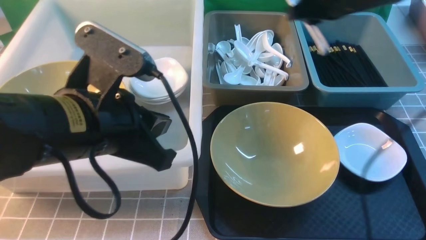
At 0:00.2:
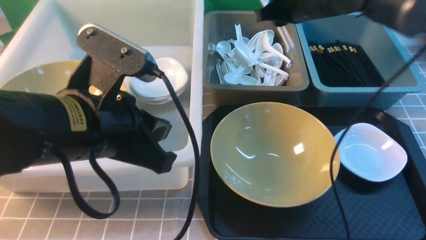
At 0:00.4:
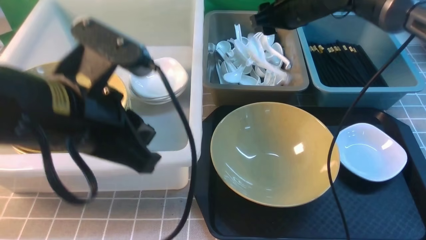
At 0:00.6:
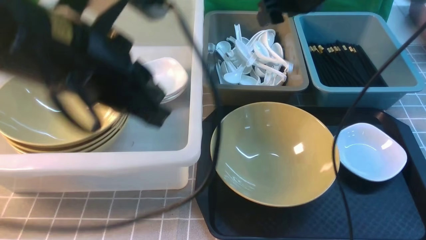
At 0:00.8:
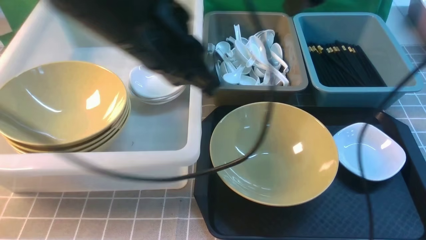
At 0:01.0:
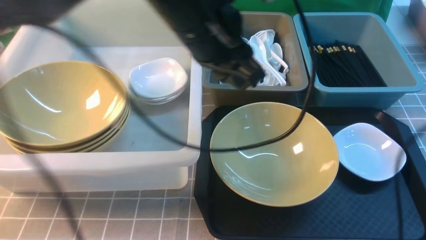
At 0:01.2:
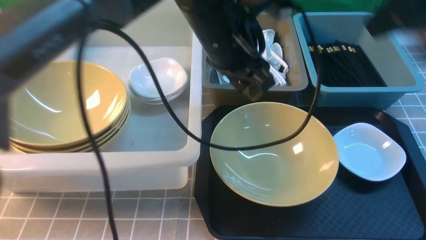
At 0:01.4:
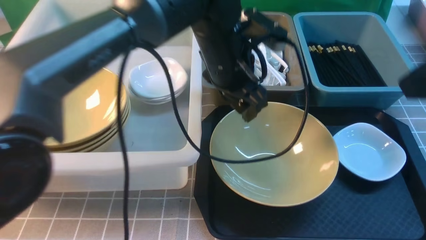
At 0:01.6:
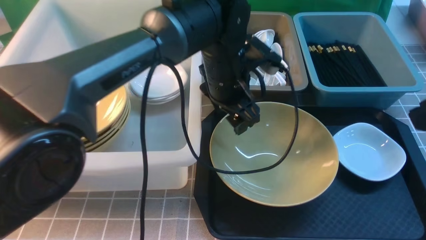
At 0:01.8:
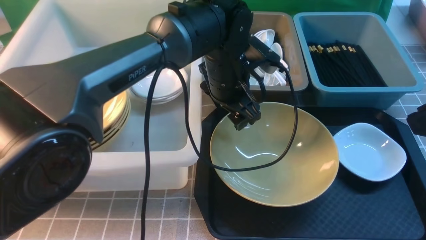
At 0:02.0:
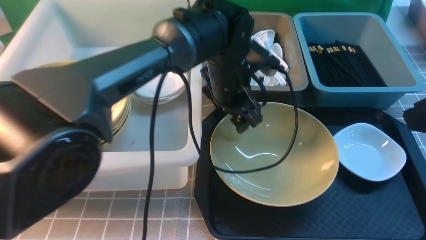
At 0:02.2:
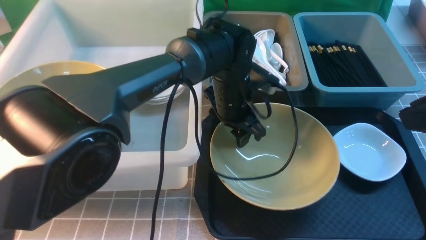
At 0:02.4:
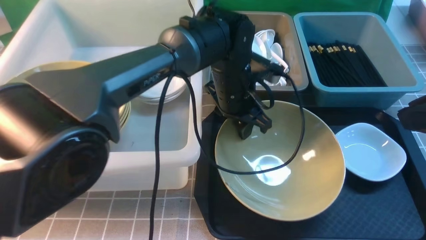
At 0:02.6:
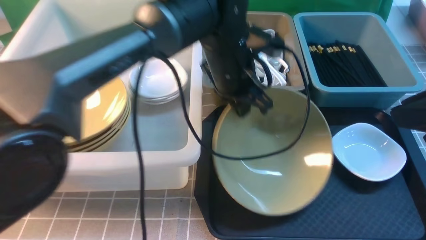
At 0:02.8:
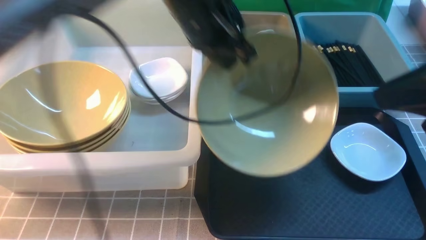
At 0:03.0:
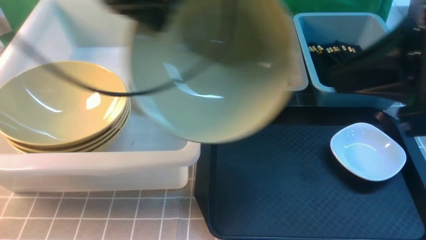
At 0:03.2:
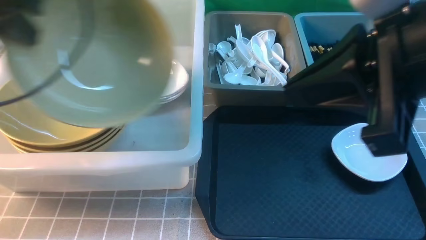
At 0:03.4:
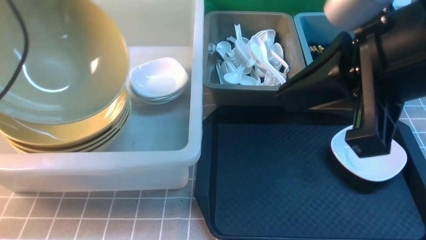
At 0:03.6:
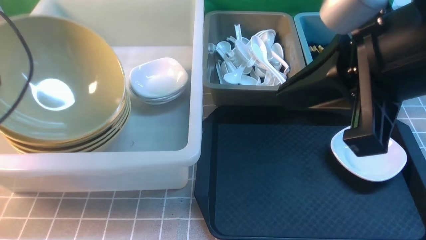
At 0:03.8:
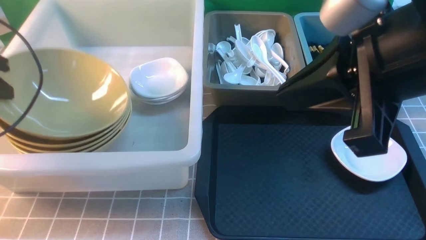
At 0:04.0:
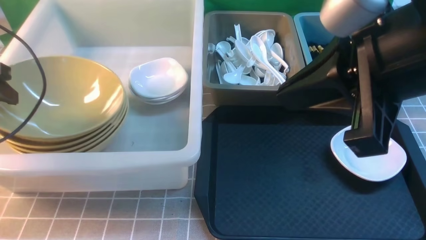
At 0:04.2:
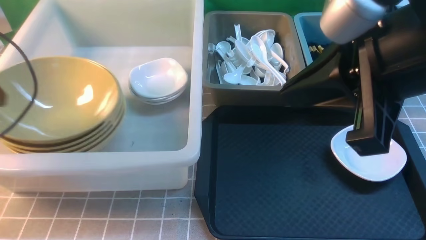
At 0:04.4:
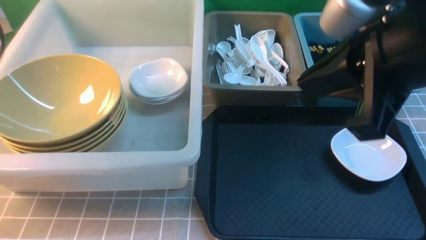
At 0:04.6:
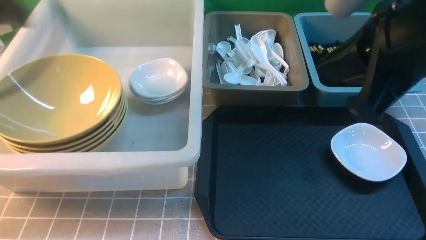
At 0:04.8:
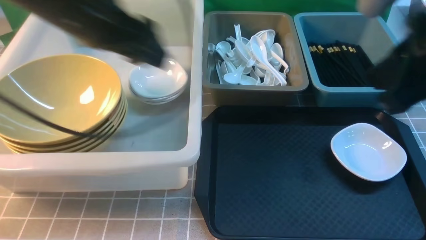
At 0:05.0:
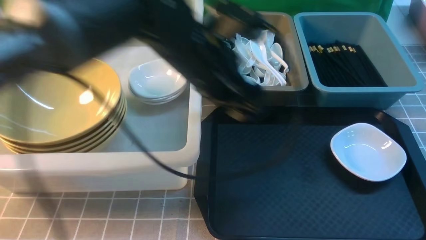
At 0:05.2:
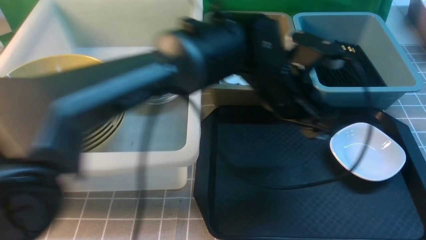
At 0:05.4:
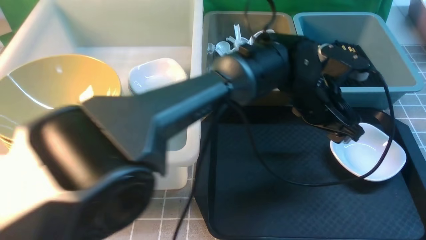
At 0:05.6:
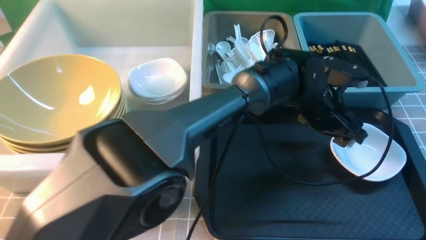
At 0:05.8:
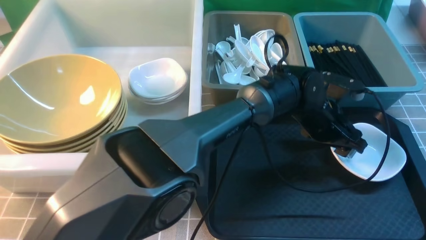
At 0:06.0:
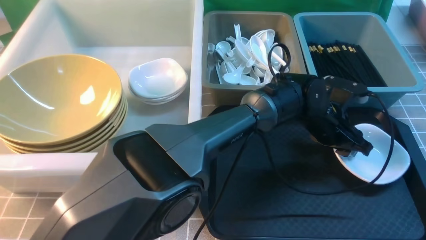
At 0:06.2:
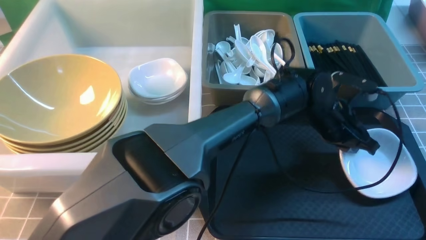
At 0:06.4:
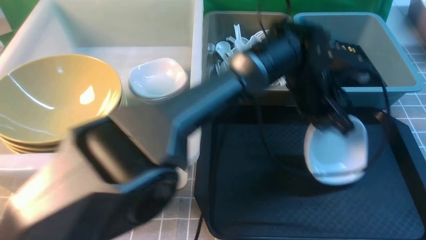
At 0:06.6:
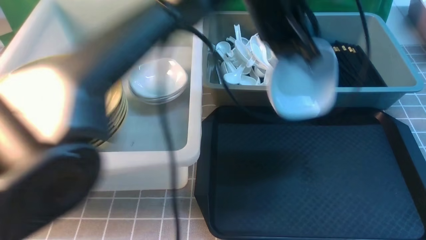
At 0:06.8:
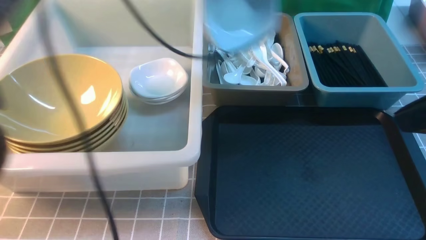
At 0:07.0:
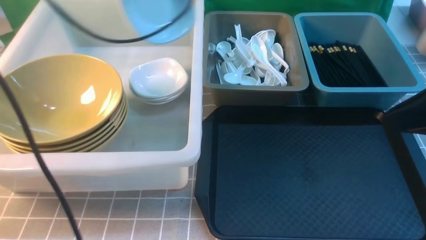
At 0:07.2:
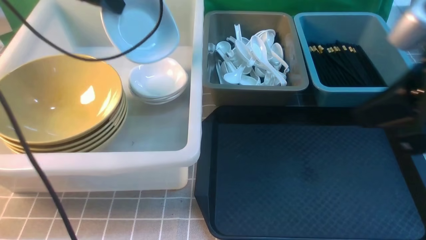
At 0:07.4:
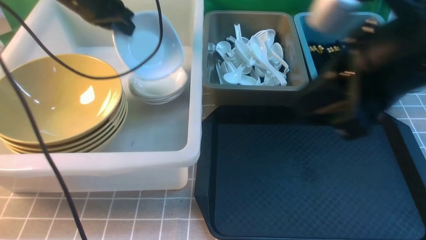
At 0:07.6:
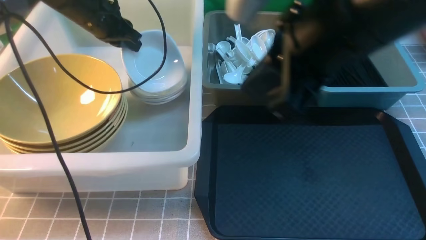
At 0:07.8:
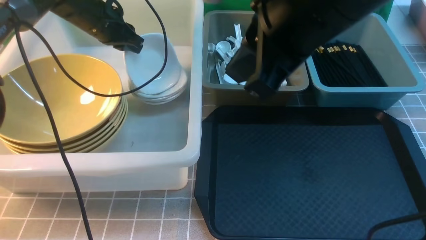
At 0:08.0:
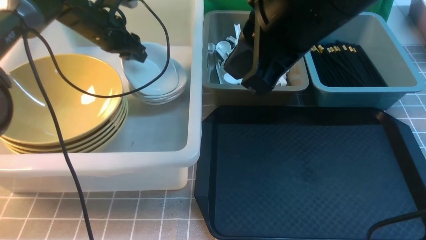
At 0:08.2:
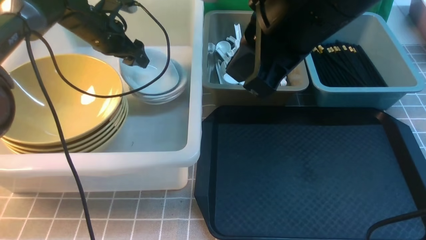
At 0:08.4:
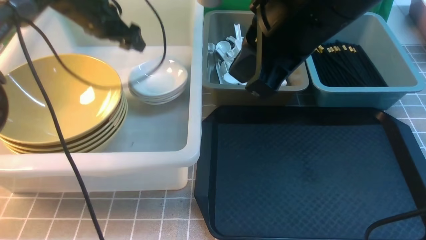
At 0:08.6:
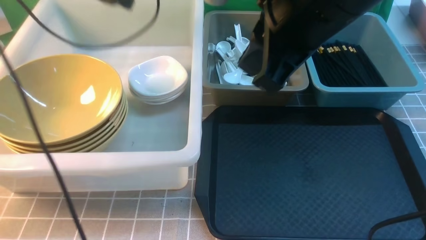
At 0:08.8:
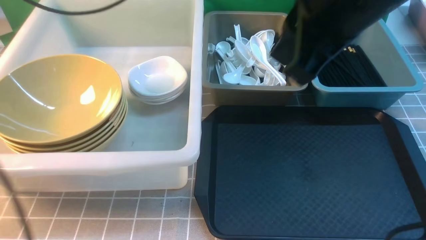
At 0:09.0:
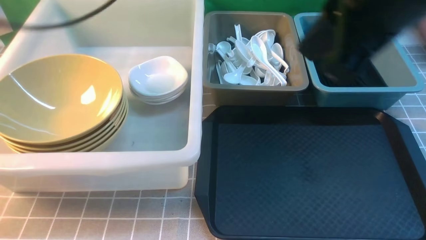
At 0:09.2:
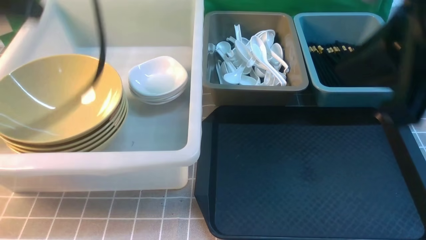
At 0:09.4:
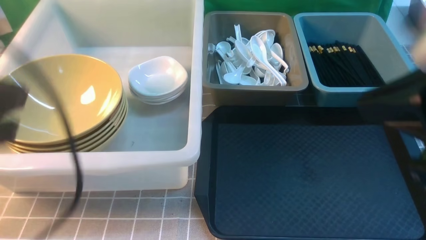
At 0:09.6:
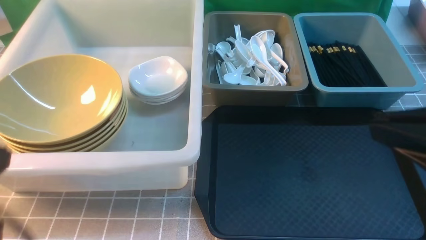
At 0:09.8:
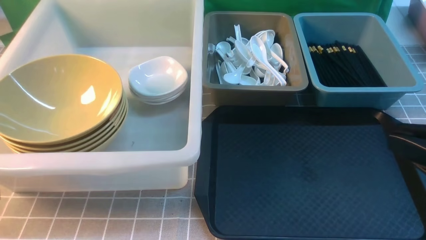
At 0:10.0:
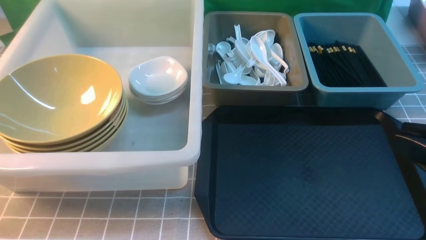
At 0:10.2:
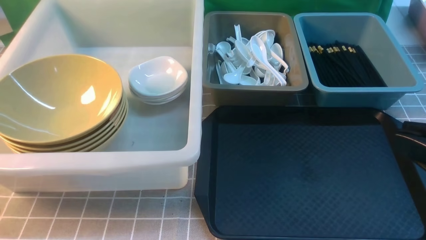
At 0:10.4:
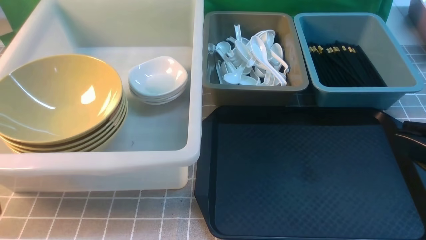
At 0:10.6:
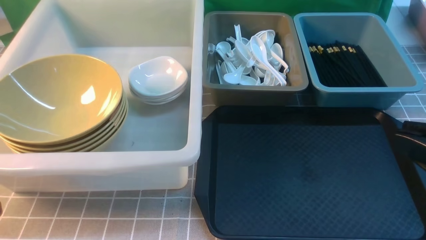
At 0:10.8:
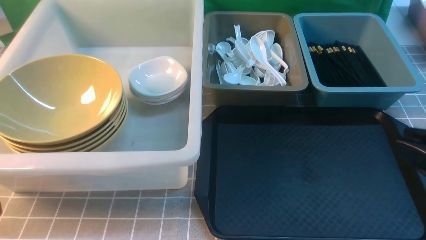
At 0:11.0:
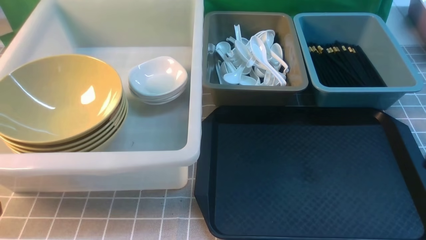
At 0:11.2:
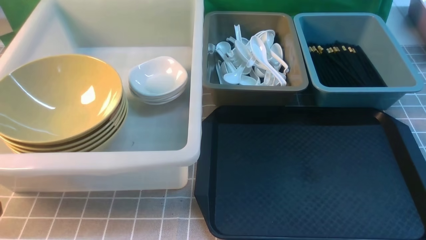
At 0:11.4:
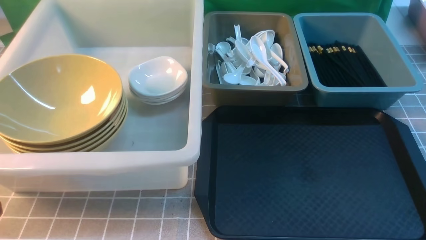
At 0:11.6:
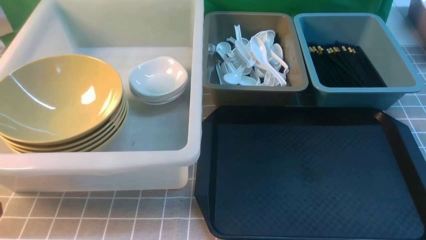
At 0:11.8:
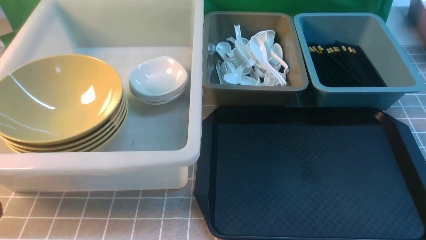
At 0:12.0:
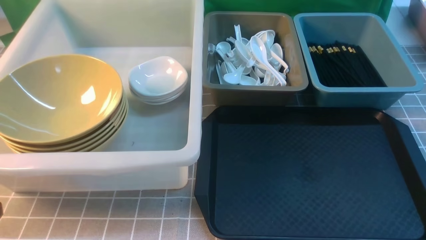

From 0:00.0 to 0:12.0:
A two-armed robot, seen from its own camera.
Task of the whole recording: on grey table put chopsticks spoon bowls plates into blue grey white boxes.
Step, from 0:00.6 to 0:02.4: use the left arm to grab the yellow noodle bowl on the left.
Step, from 0:02.6 to 0:04.2: use the left arm to put the noodle bowl into the large storage box on the left.
Step, from 0:04.4 to 0:06.2: use the left arm to grab the plate.
Step, from 0:06.6 to 0:08.2: use the left arm to put the plate into the large storage box on the left.
From 0:00.0 to 0:01.6: The right gripper heads backward, covering roughly 25 cm, and opens, then closes again. The left gripper shifts some 25 cm forward and to the right, and opens.
From 0:01.6 to 0:03.0: The left gripper heads to the left and upward, covering about 25 cm, and closes up; the right gripper heads to the left, covering roughly 5 cm.
From 0:03.0 to 0:04.4: The left gripper is displaced to the left by roughly 15 cm, and opens its fingers.
From 0:04.4 to 0:06.0: The left gripper moves to the right and downward, roughly 60 cm, and closes. Meanwhile the right gripper goes approximately 15 cm to the right and backward.
From 0:06.0 to 0:07.6: The left gripper is displaced to the left by about 40 cm, and closes, while the right gripper shifts some 20 cm to the left and forward.
From 0:07.6 to 0:09.0: The left gripper travels upward and backward by roughly 30 cm, and opens, then closes once more. The right gripper changes place by approximately 5 cm.
From 0:09.0 to 0:10.4: The left gripper is displaced backward and downward by approximately 35 cm, while the right gripper shifts approximately 20 cm backward, downward and to the right.
From 0:10.4 to 0:12.0: The right gripper moves downward and to the right, roughly 20 cm.

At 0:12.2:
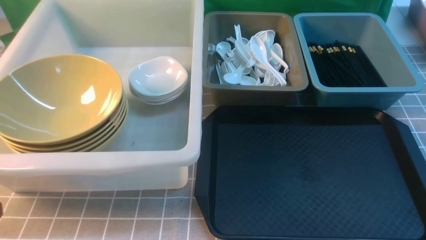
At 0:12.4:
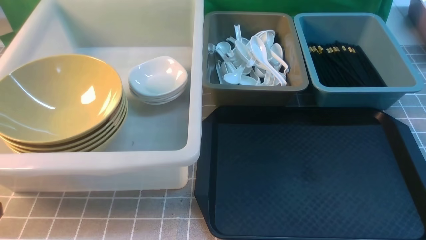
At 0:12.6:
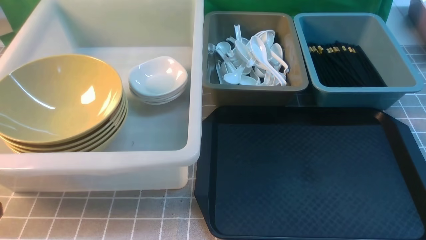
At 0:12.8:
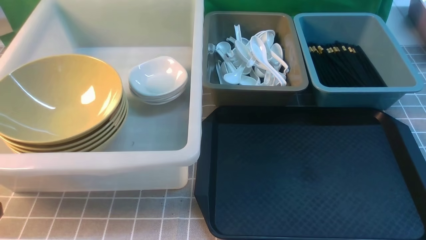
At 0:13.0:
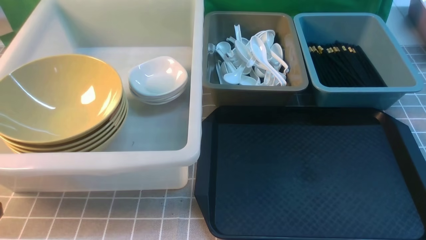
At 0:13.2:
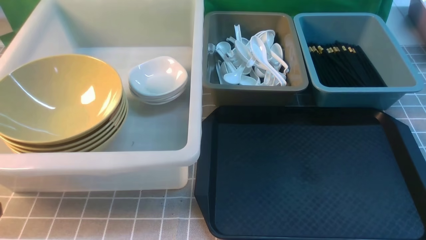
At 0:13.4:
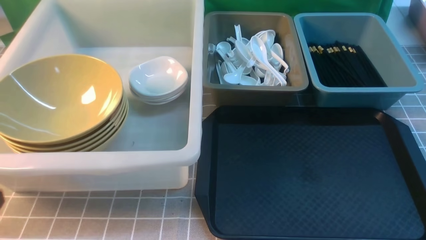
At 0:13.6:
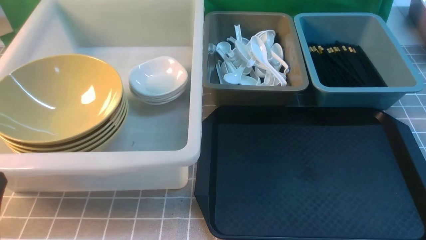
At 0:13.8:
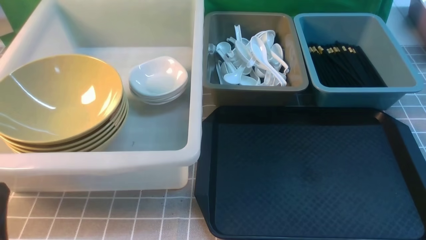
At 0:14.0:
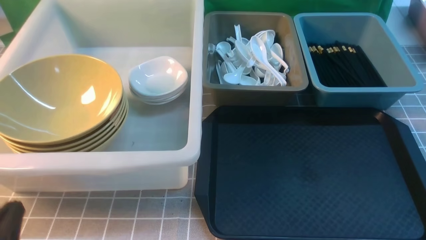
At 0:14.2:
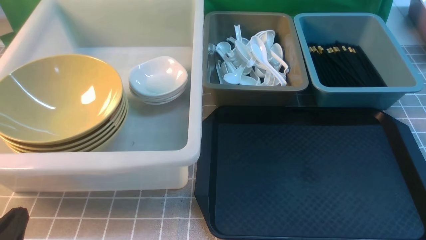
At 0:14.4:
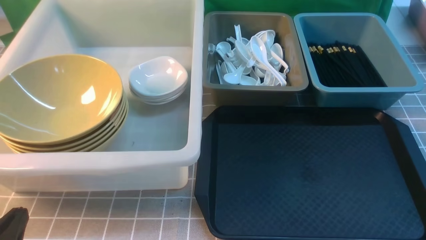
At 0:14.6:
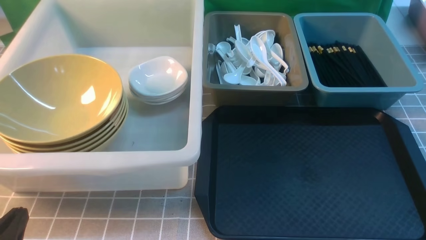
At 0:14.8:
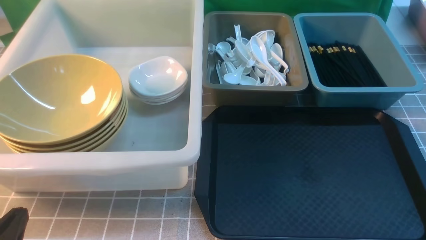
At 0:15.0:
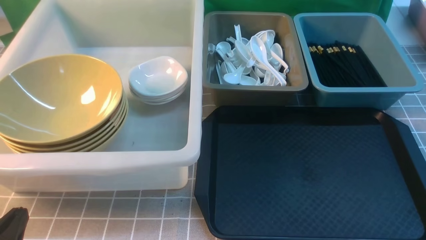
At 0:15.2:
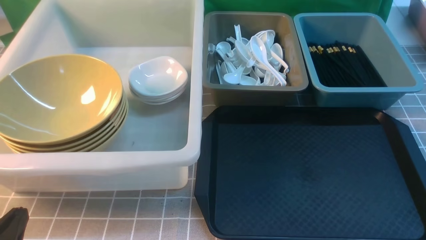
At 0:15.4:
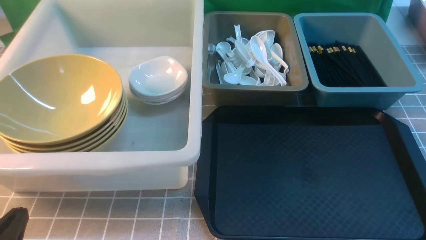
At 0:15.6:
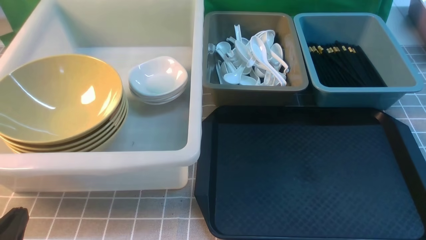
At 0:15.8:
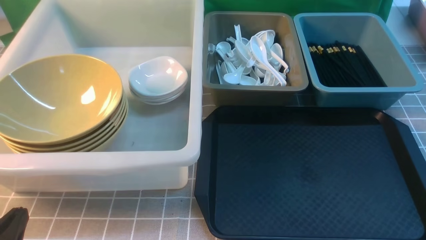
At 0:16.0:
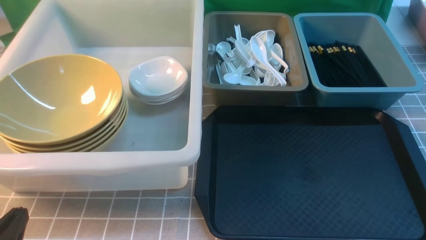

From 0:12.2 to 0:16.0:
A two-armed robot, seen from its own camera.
Task of the whole recording: on grey table put chopsticks spoon bowls plates into blue grey white boxes.
From 0:13.4 to 0:14.8: The left gripper heads downward, covering about 10 cm.
From 0:14.8 to 0:16.0: Both grippers stay about where they are.
